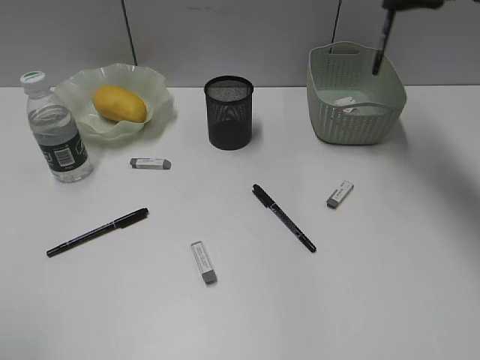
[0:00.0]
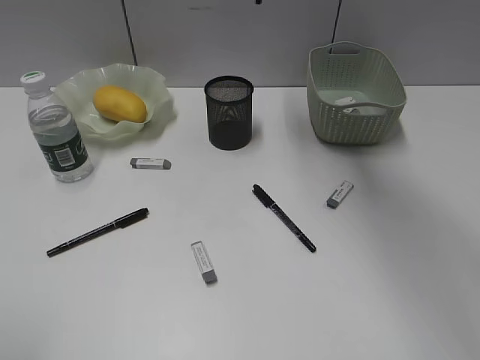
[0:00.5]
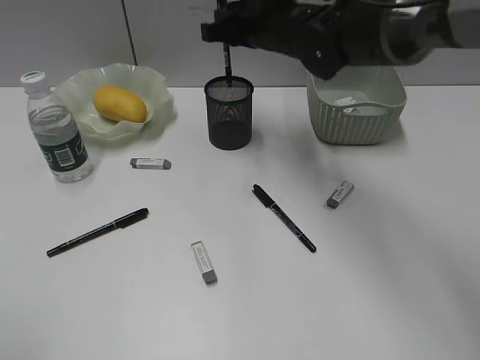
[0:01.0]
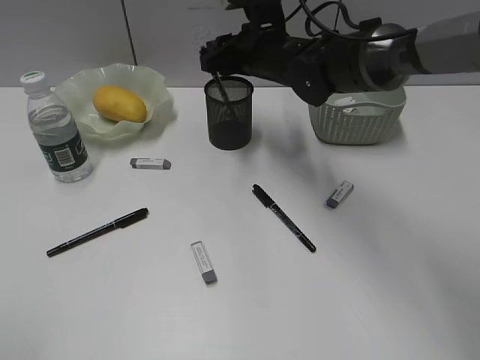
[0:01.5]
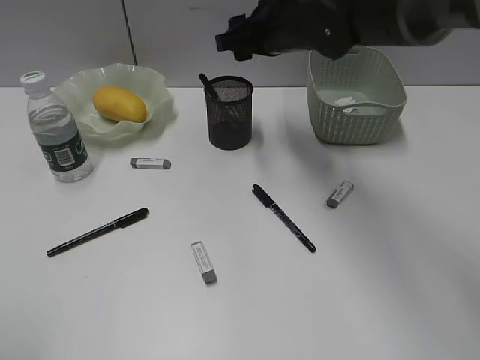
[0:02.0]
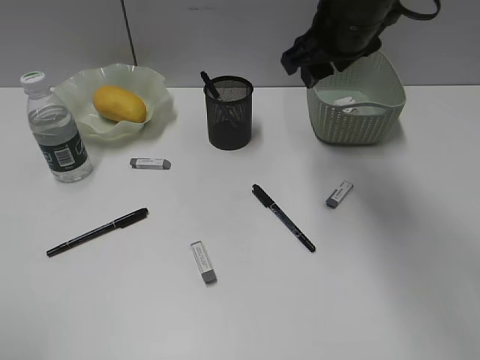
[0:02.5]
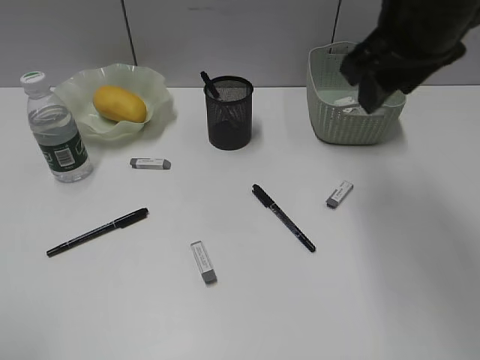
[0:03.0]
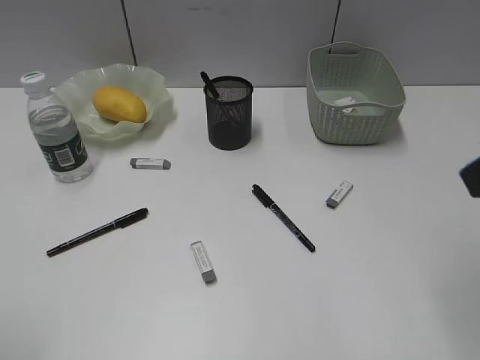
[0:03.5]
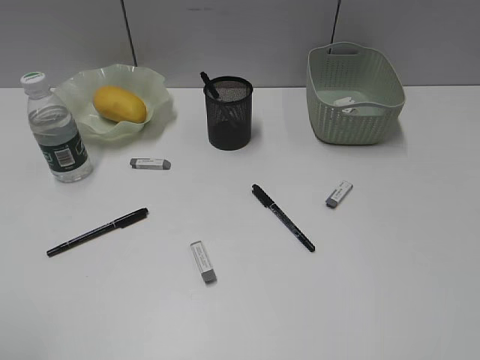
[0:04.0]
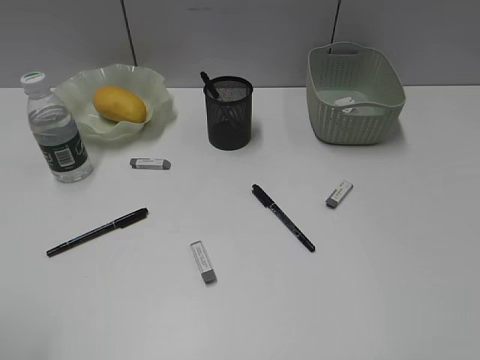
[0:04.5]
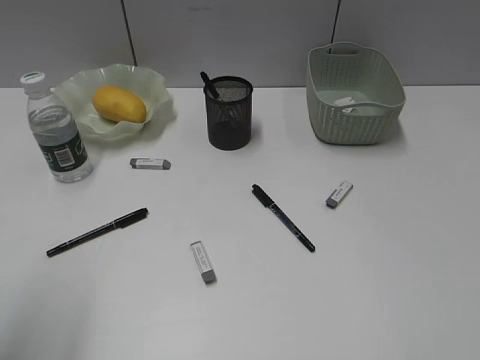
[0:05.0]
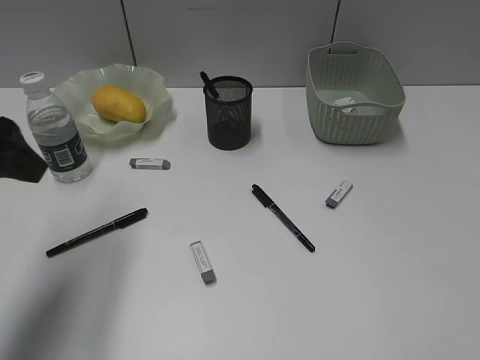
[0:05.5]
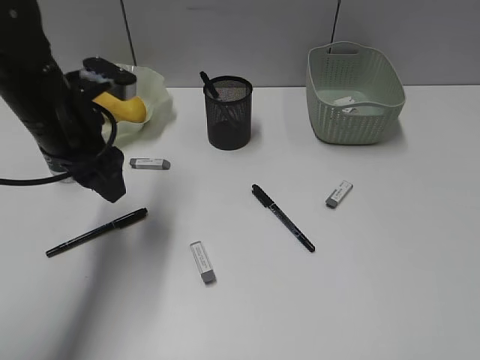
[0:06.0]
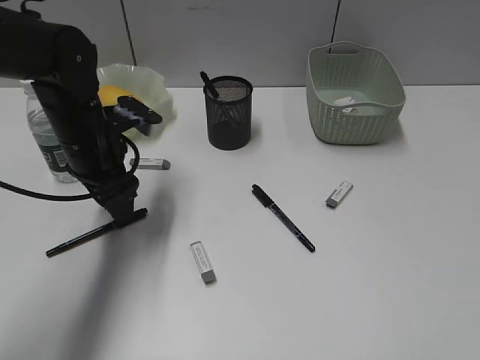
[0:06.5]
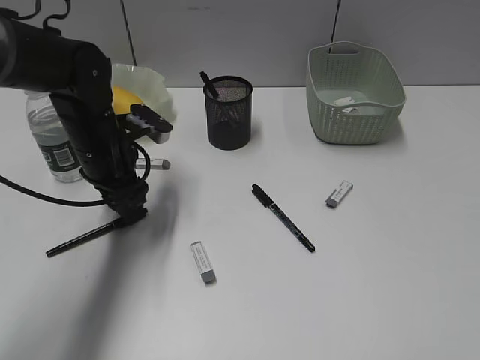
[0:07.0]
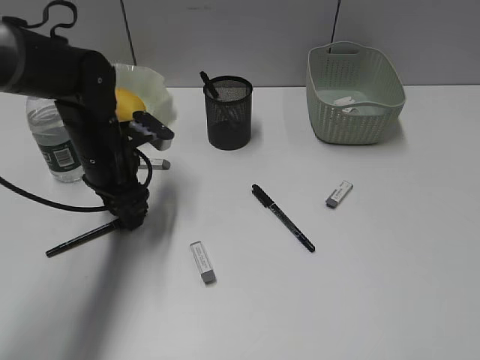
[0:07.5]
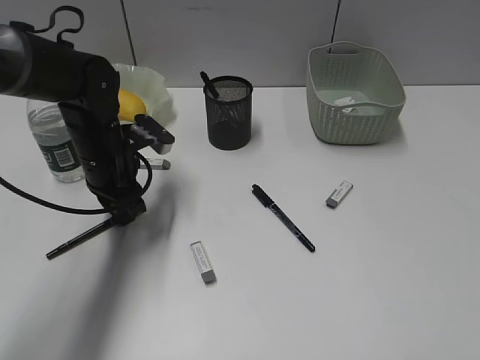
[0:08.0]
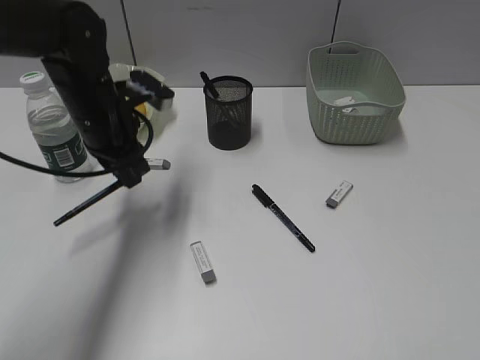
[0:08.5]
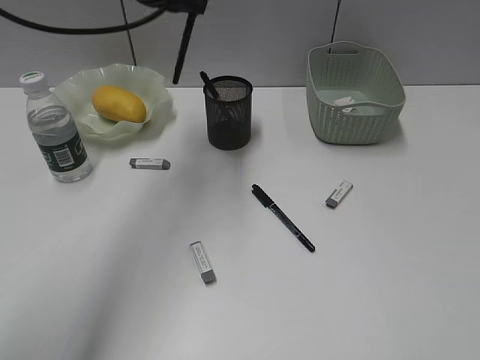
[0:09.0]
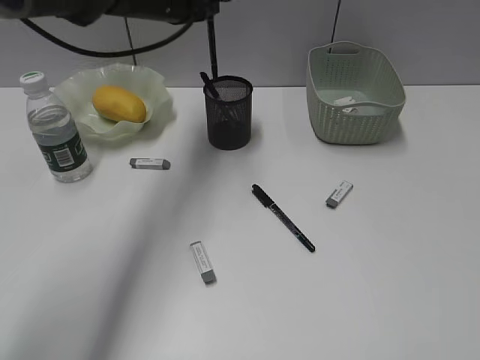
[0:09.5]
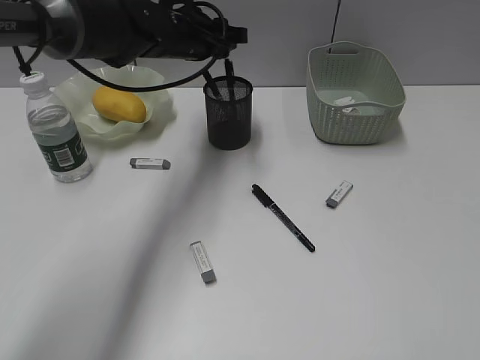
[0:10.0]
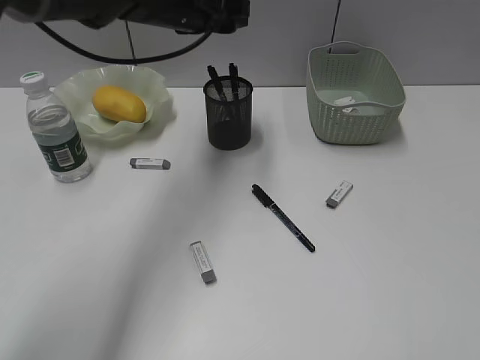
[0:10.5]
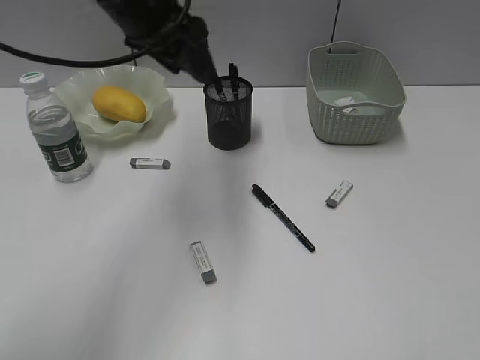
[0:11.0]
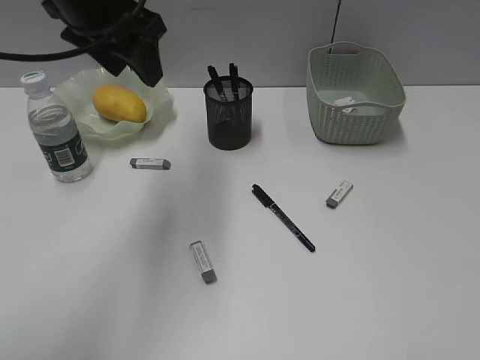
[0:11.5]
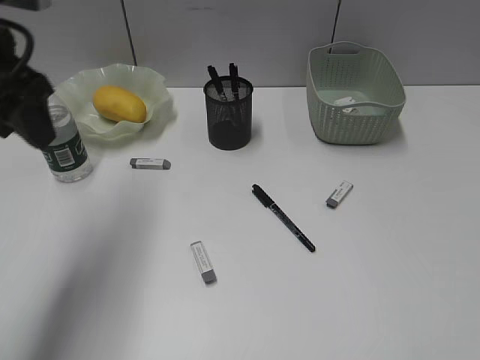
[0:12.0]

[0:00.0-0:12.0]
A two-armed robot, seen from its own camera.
Step, 0:00.0 to 0:01.5: Place the black pen in pen holder with right gripper.
Step, 0:02.0 to 0:08.0: Grasp the black pen with left gripper.
Step, 0:08.5 to 0:10.0: Place the black pen in pen holder with left gripper.
0:00.0 to 0:02.0: The right gripper shifts roughly 15 cm to the left and downward, and opens up.
0:02.0 to 0:04.0: The right gripper moves backward and to the right, roughly 40 cm.
0:04.0 to 0:06.0: The left gripper shifts about 30 cm forward and to the right.
0:06.0 to 0:08.0: The left gripper is displaced downward by approximately 10 cm, and closes its fingers.
0:08.0 to 0:10.0: The left gripper is displaced forward, upward and to the right by about 15 cm.
0:10.0 to 0:12.0: The left gripper travels backward, to the left and upward by some 25 cm.

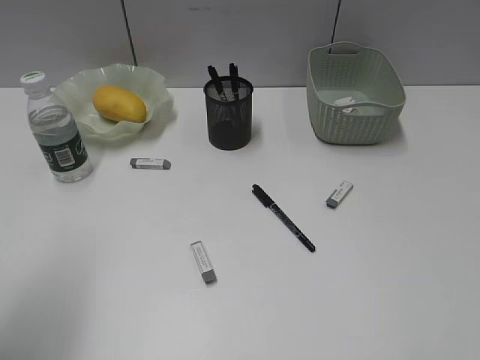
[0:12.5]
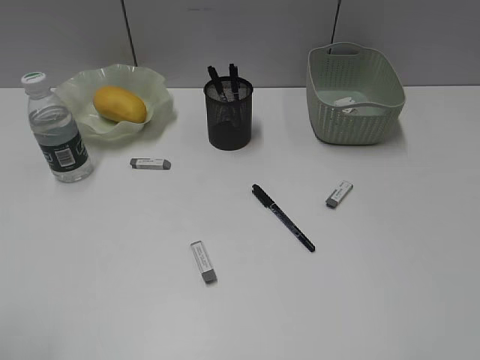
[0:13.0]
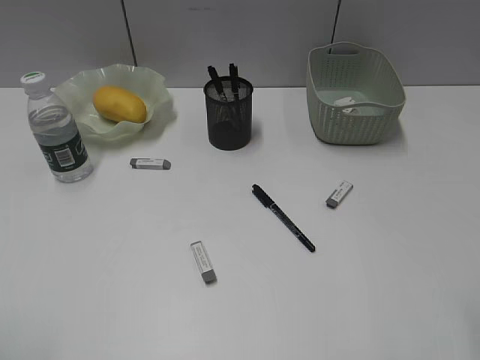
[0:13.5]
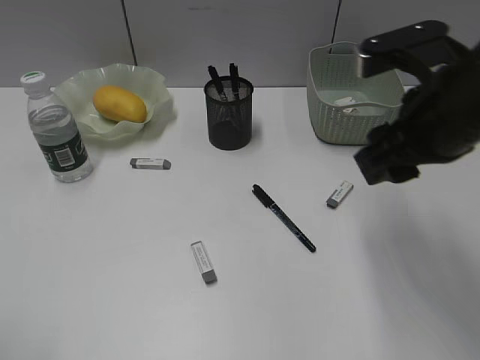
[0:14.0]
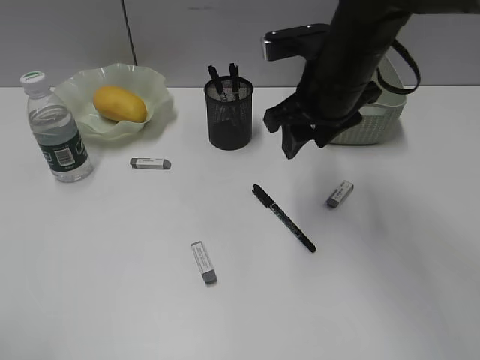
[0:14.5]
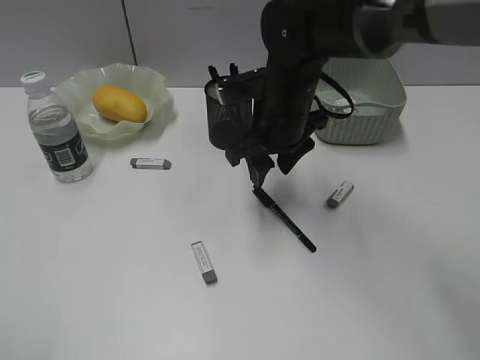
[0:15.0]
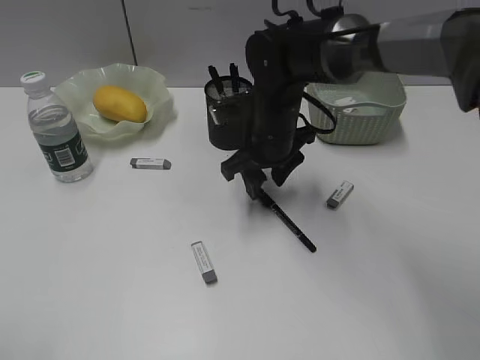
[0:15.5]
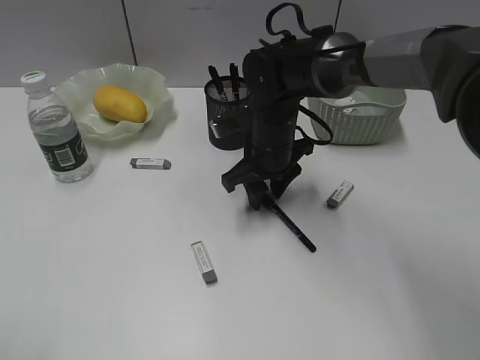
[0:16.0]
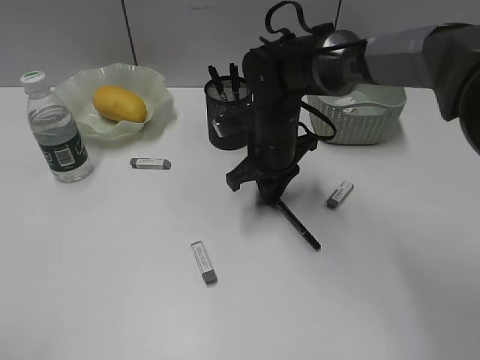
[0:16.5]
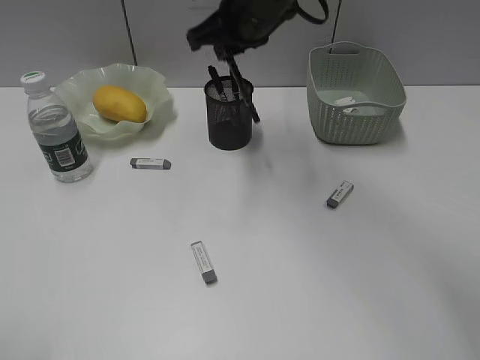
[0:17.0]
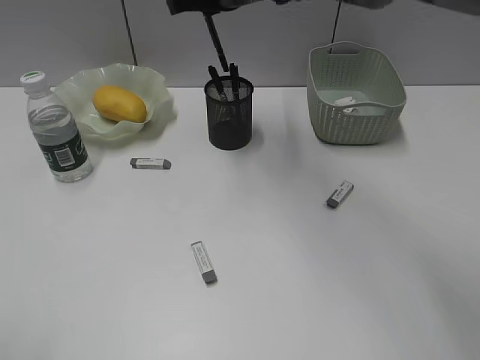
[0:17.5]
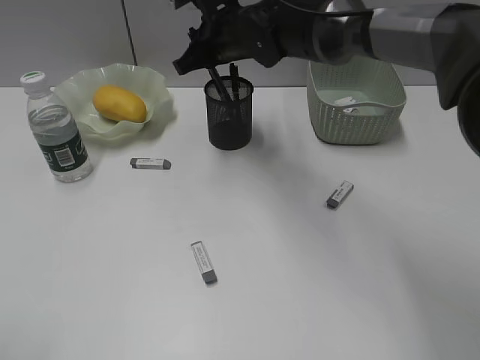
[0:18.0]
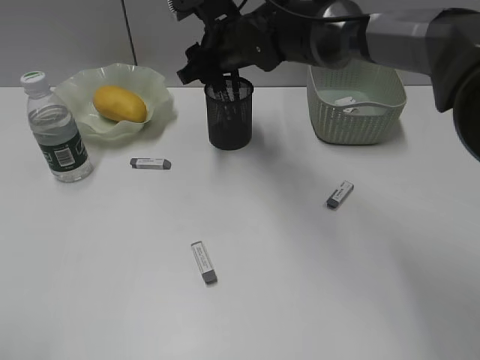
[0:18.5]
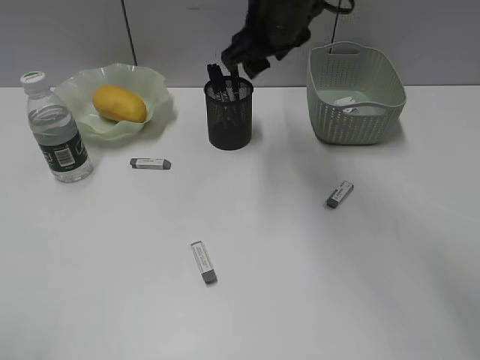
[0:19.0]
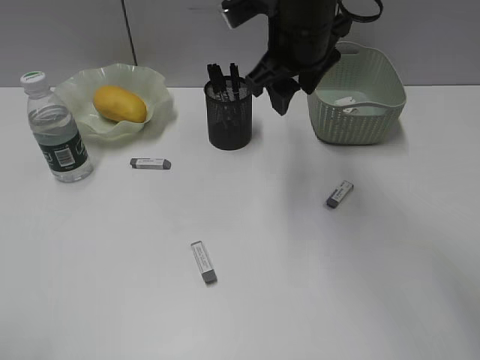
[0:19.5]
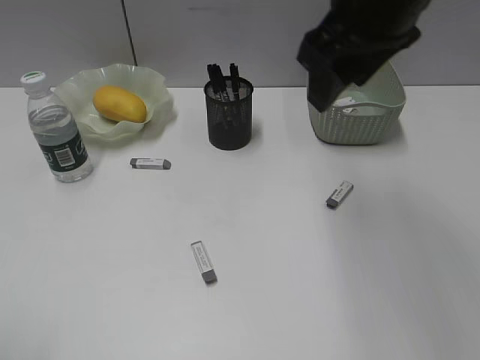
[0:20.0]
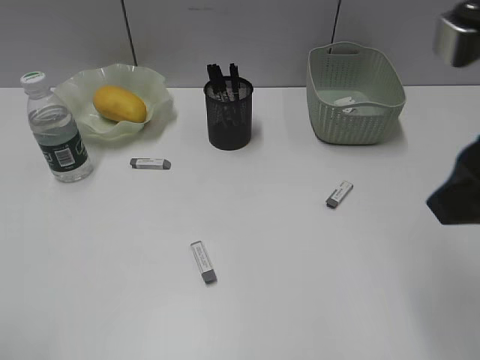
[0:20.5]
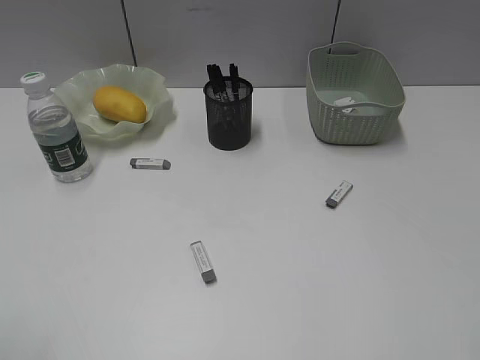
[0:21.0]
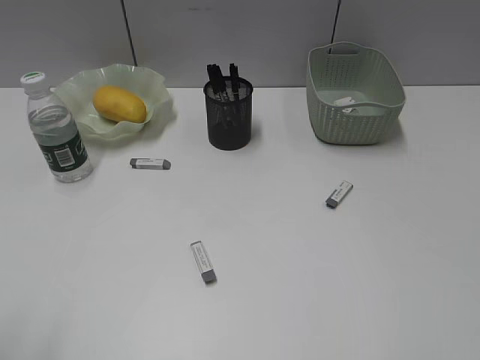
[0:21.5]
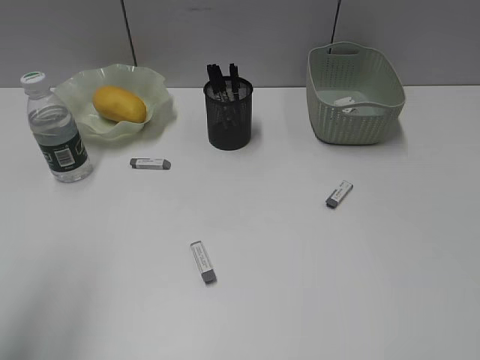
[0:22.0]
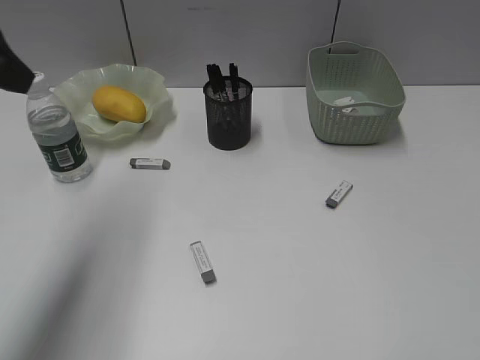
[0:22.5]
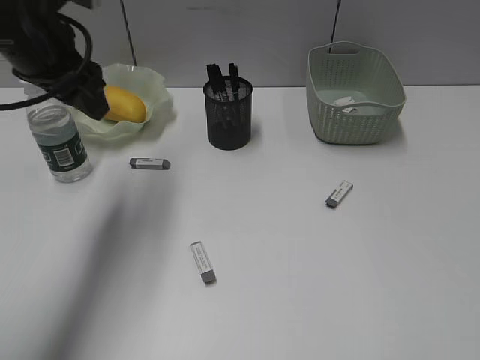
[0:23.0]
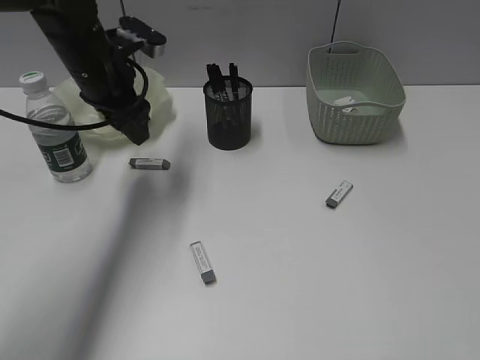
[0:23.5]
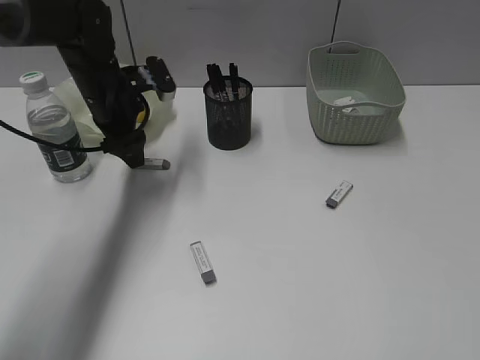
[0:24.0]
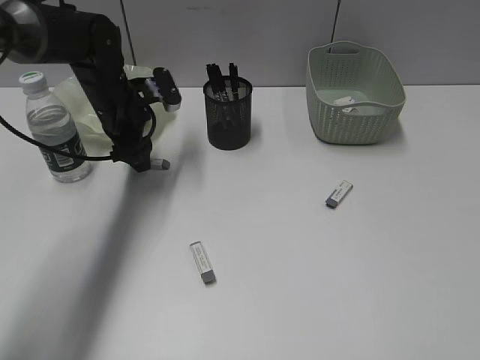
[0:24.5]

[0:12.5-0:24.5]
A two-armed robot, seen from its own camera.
Step, 0:12.5 to 0:16.0: Grasp the black pen with right gripper.
Step, 0:16.5 to 0:18.5: Place the black pen in pen holder with right gripper.
0:12.5 to 0:14.5: The right gripper shifts about 40 cm forward and to the left. The left gripper heads backward, covering about 10 cm.
0:14.5 to 0:16.5: The right gripper shifts about 10 cm downward and to the left, and closes.
0:16.5 to 0:18.5: The right gripper shifts about 10 cm upward and forward, and opens up.
0:18.5 to 0:20.5: The right gripper travels backward, to the right and upward by about 40 cm.
0:20.5 to 0:22.5: The right gripper moves backward and to the right, roughly 15 cm. Meanwhile the left gripper shifts approximately 25 cm forward.
0:22.5 to 0:24.5: The left gripper travels downward and forward by approximately 25 cm.

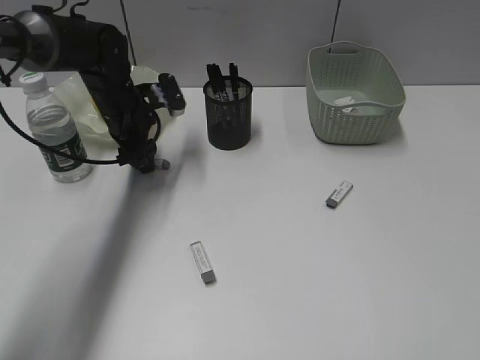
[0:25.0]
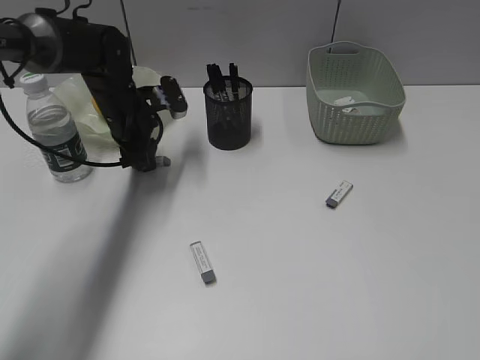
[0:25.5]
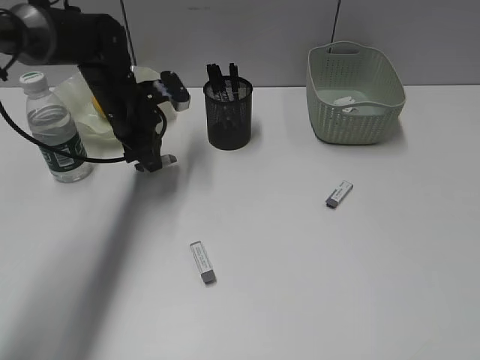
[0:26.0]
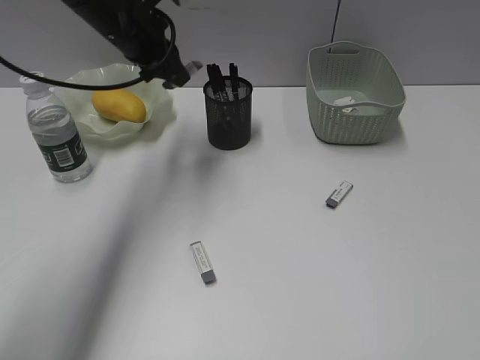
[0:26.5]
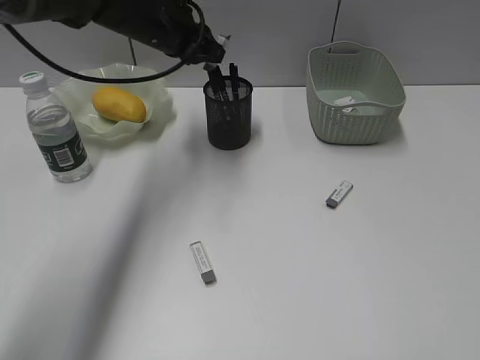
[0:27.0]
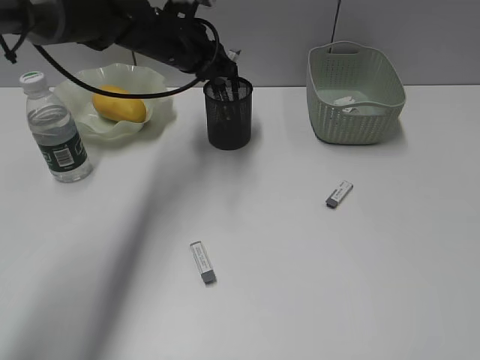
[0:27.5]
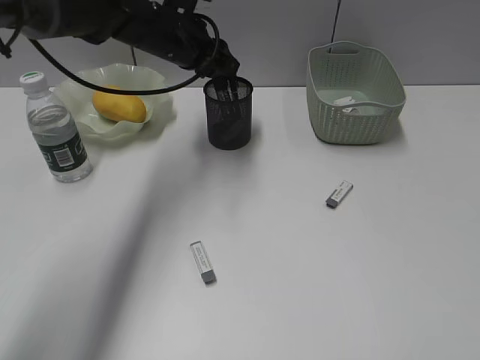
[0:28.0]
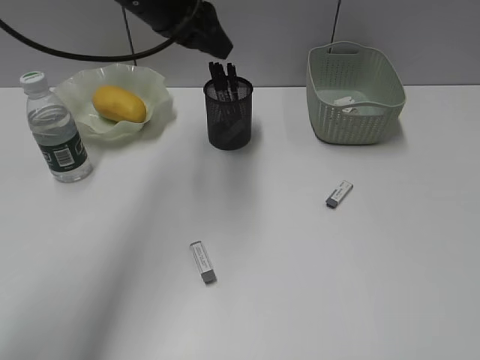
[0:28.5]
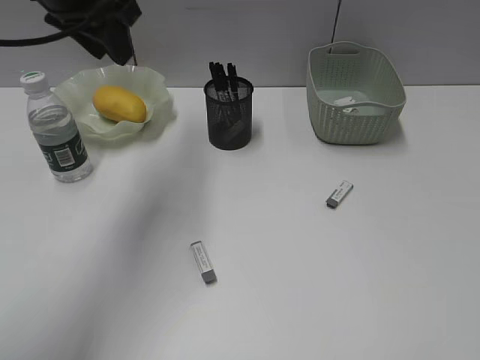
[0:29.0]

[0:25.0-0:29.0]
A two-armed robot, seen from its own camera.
Step, 0:26.0 to 0:28.0: Place the eraser in pen holder with left gripper.
0:25.0 to 0:27.0: The left gripper heads upward and to the right, covering roughly 10 cm, and closes.
0:27.0 to 0:29.0: The left gripper travels upward, backward and to the left by roughly 15 cm.
